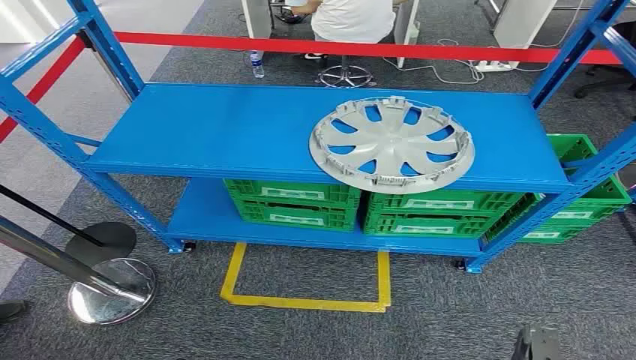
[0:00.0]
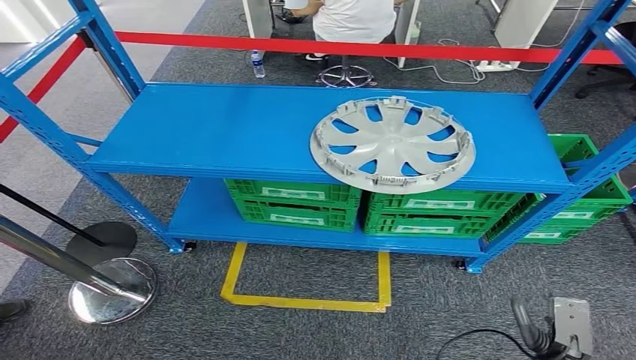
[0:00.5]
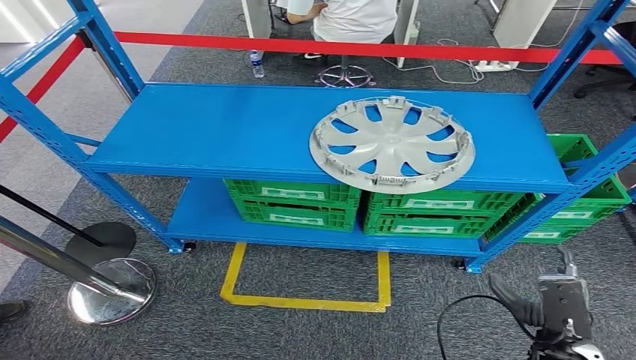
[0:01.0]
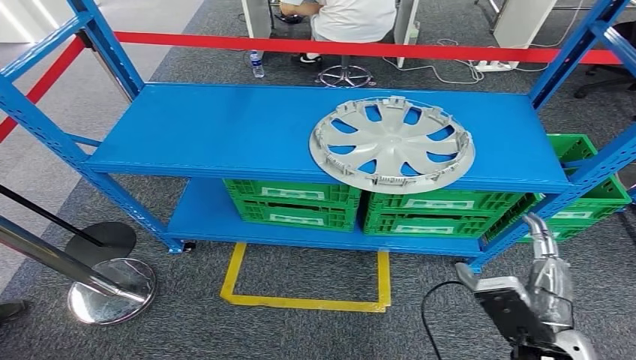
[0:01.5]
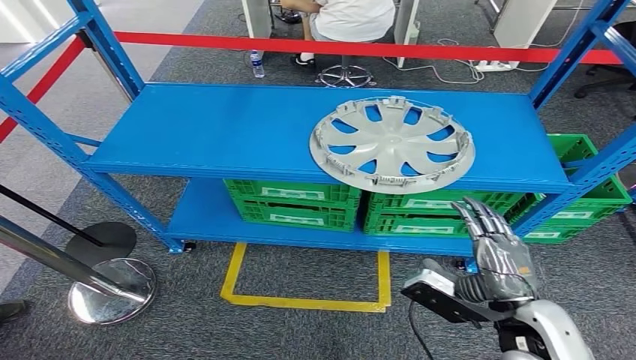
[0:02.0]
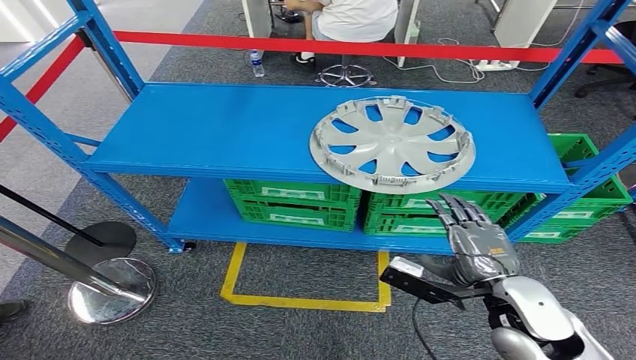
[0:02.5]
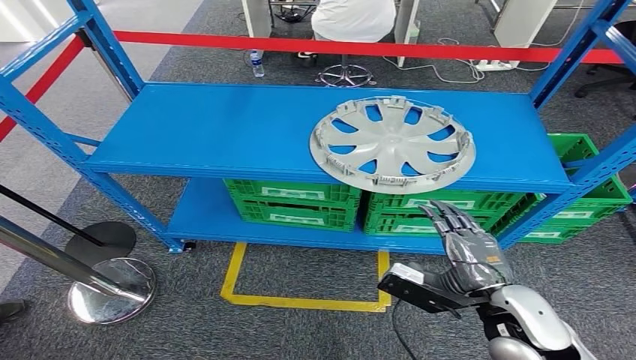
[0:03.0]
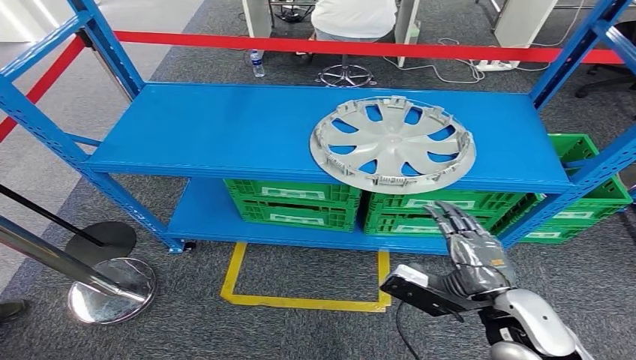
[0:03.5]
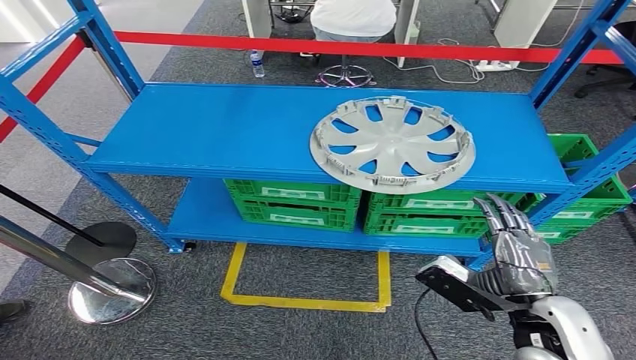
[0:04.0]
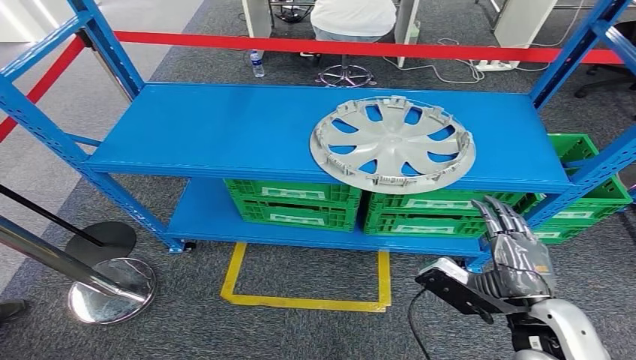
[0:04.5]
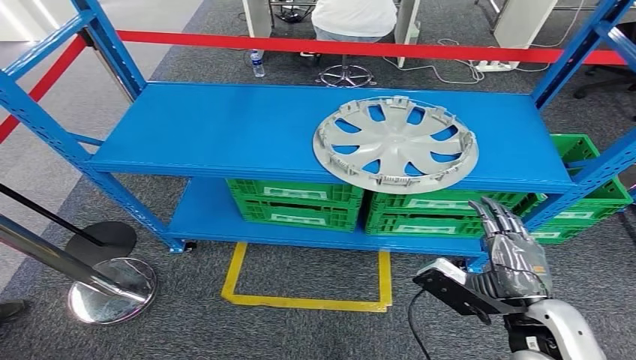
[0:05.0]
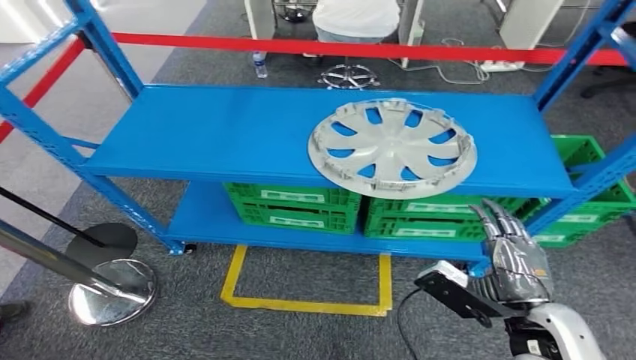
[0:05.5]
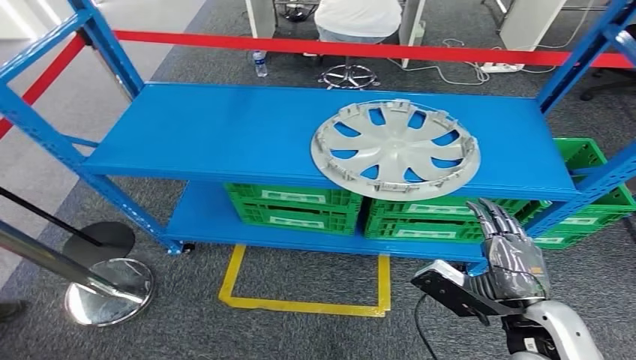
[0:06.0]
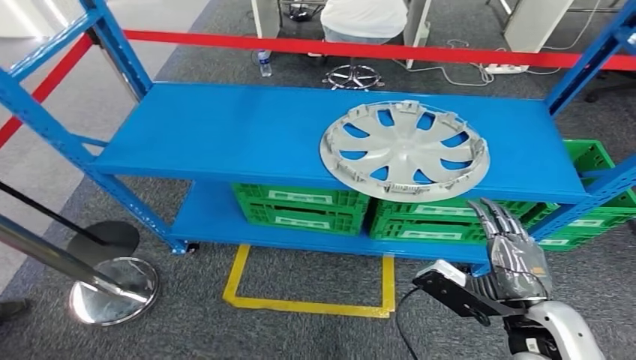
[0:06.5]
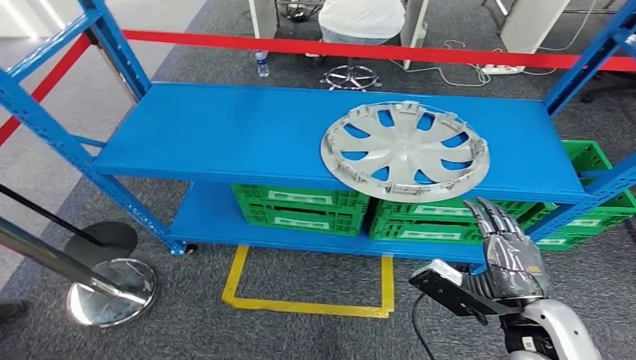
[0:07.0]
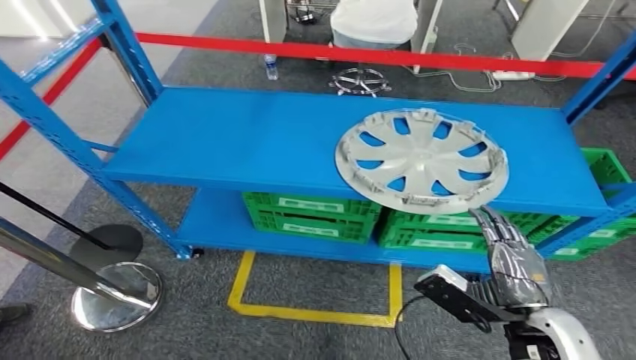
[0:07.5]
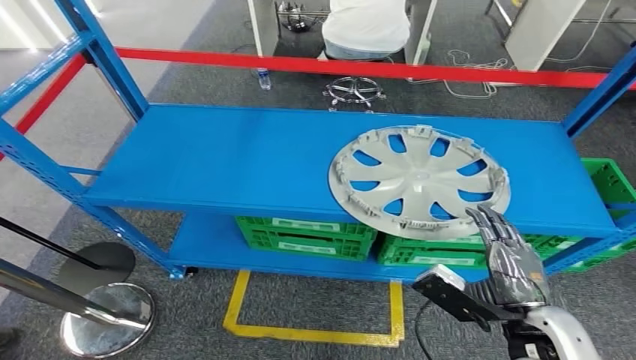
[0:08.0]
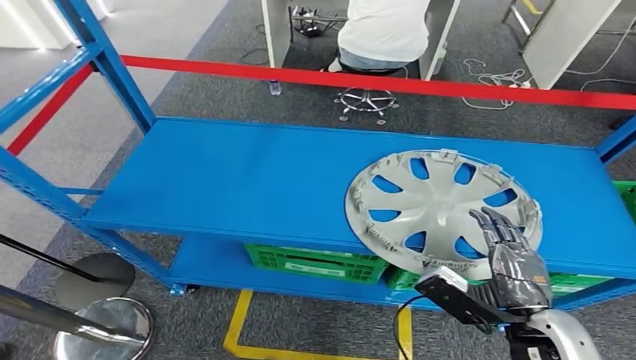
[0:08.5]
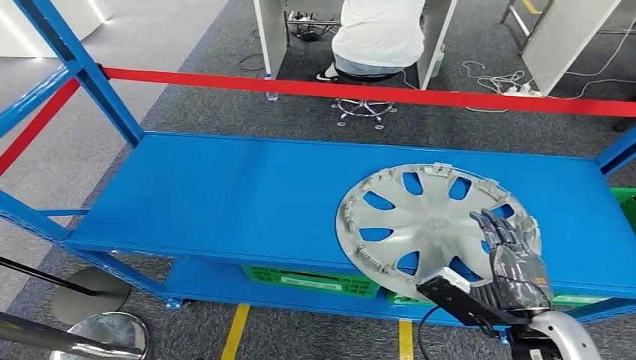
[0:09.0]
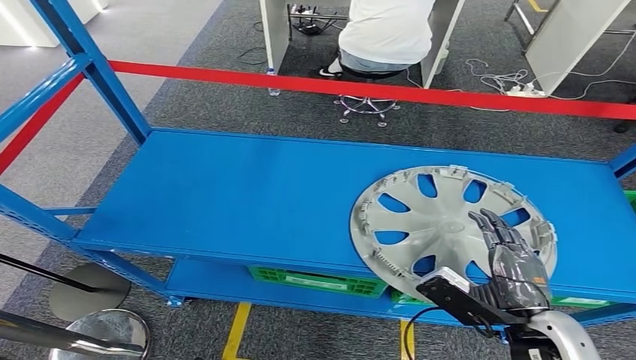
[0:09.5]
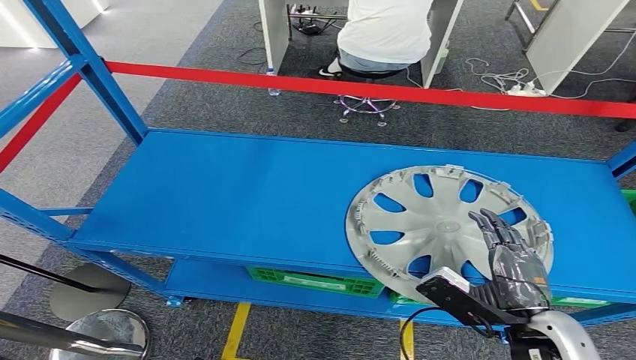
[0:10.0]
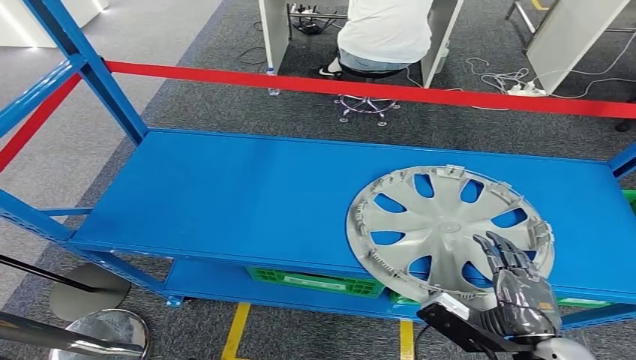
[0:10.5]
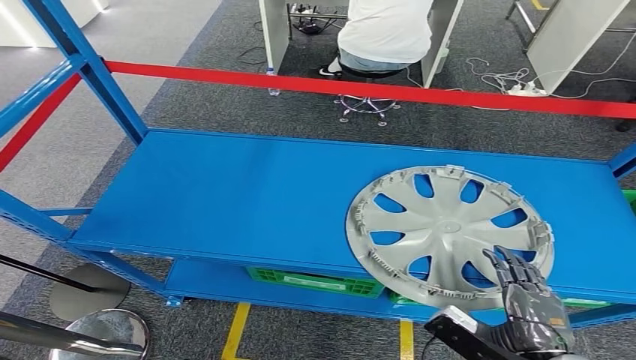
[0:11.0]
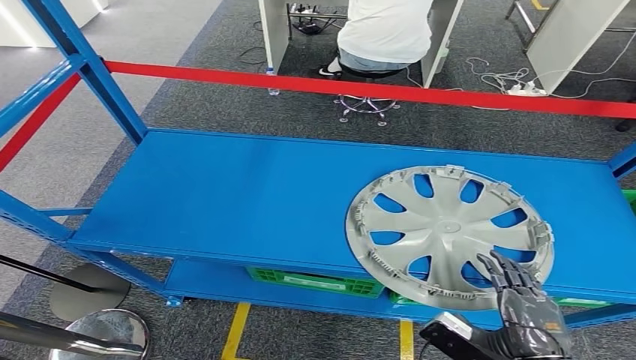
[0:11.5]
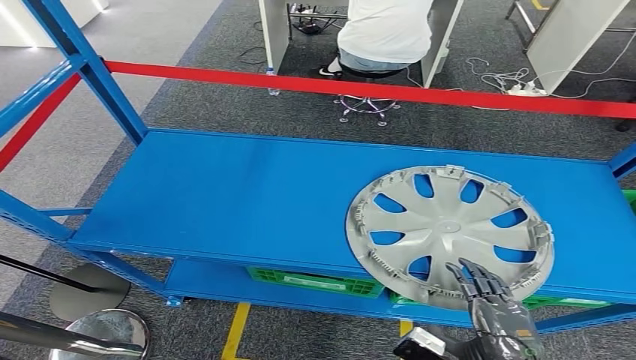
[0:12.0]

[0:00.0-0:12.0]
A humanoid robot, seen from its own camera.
0:02.0 to 0:04.0: There are only small adjustments of the hands.
0:10.0 to 0:12.0: The right hand moves backward, approximately 5 cm.

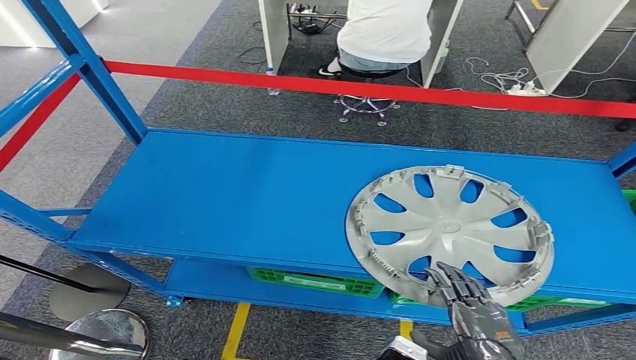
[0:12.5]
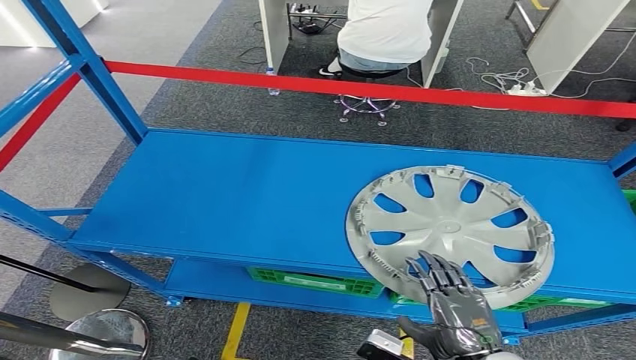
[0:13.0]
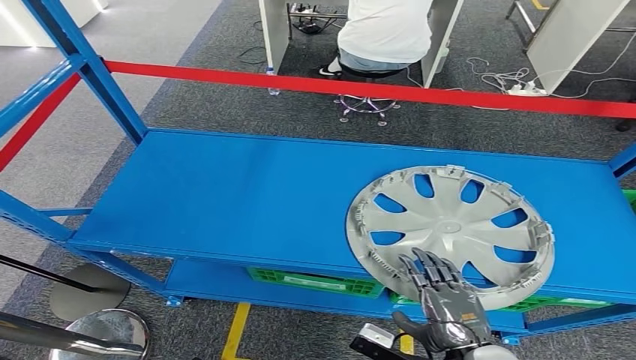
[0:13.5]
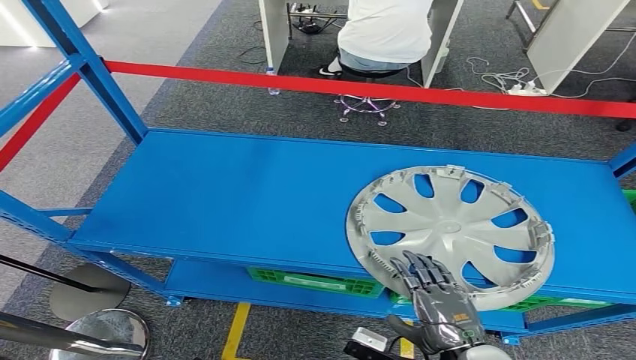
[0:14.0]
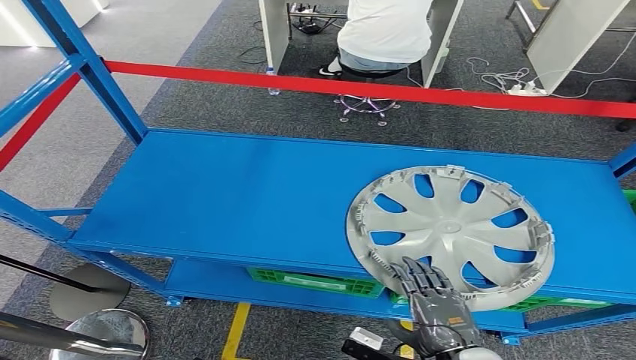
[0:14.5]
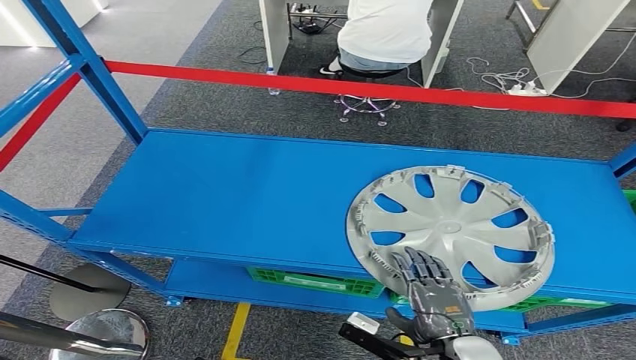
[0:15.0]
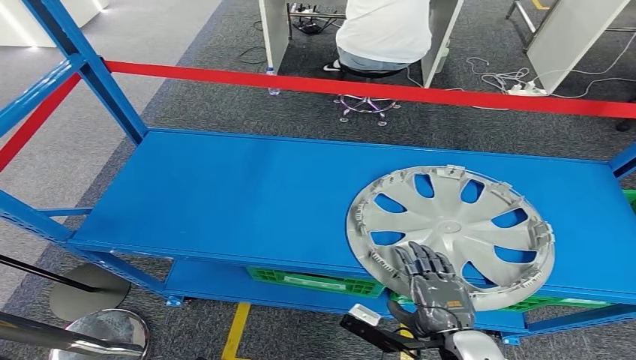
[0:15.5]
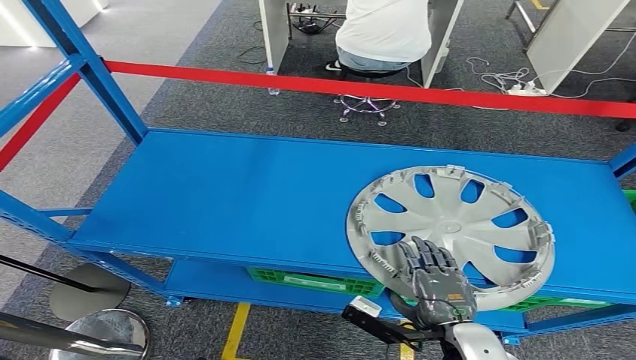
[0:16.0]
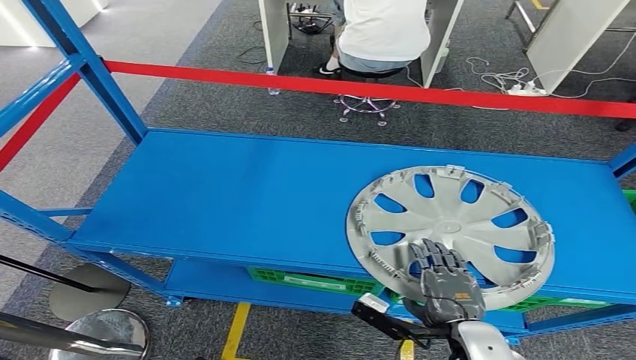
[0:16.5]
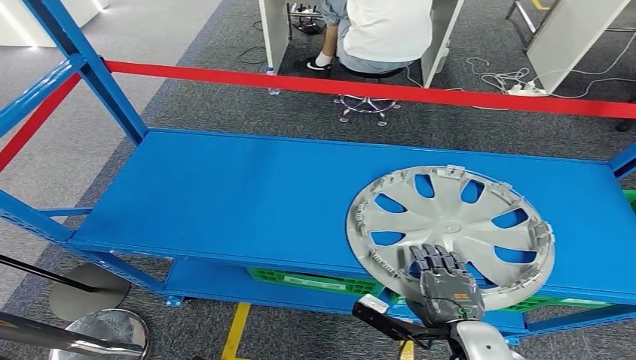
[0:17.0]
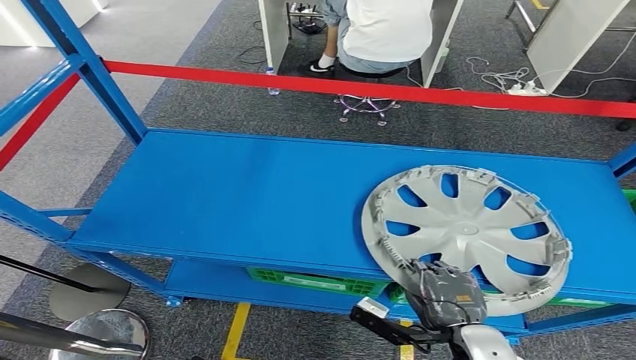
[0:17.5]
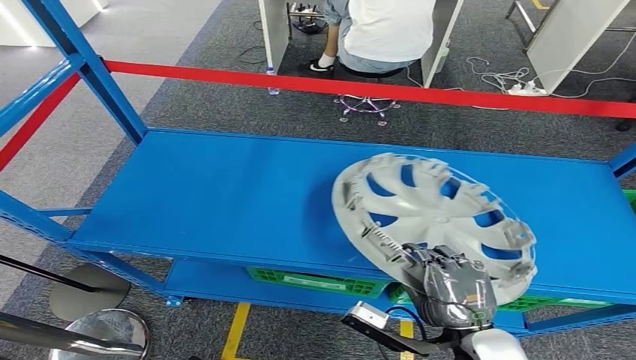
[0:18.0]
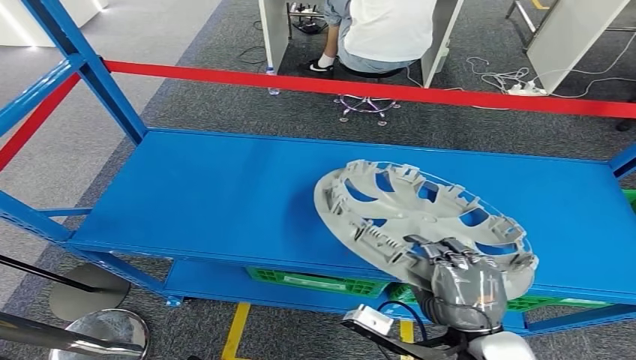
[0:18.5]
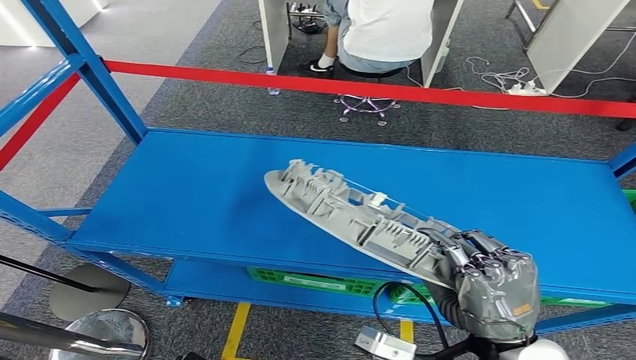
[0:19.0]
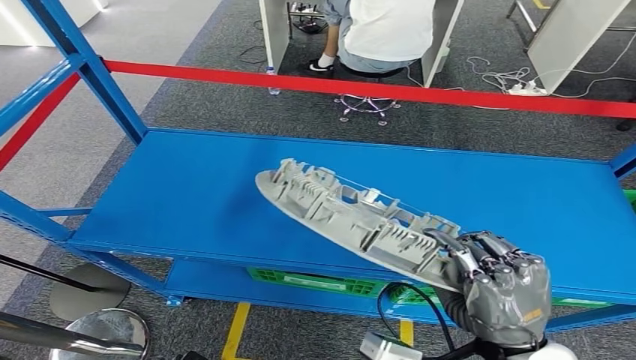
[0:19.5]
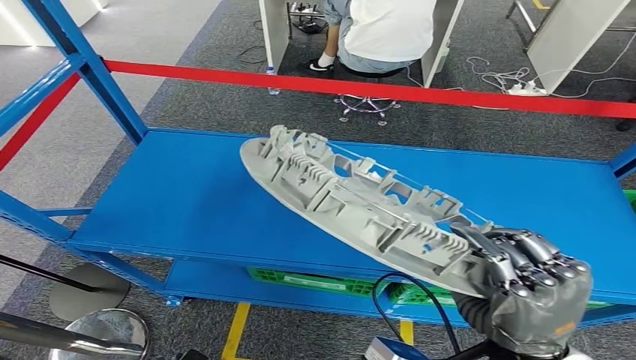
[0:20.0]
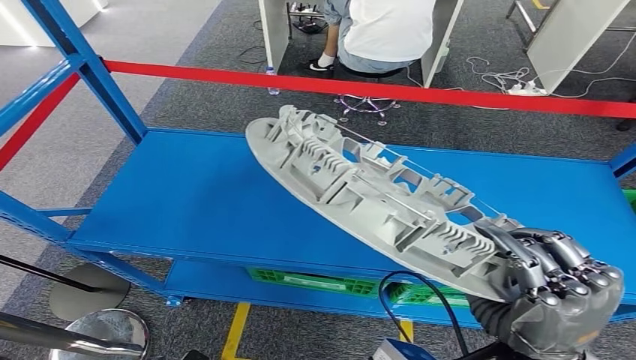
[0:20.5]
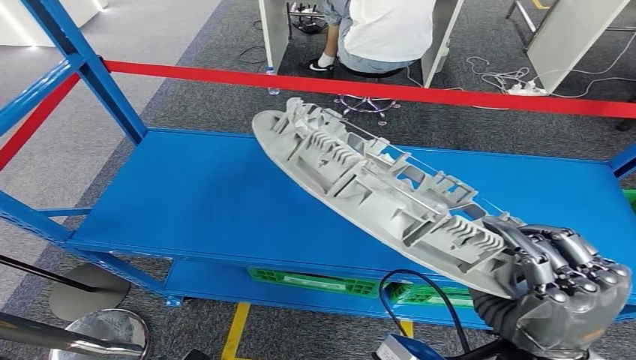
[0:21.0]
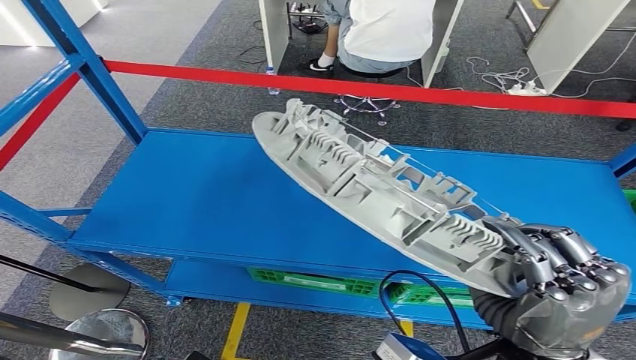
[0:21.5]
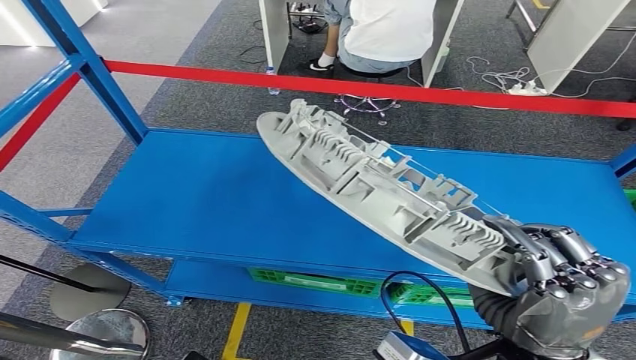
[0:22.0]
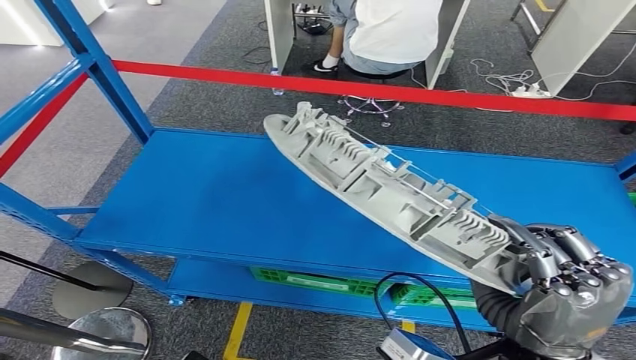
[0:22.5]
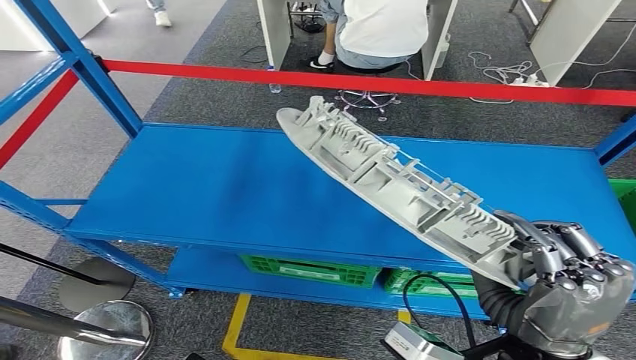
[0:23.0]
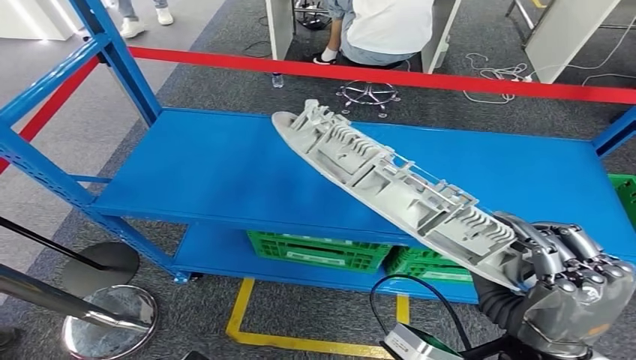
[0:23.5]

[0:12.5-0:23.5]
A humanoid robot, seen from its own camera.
0:12.5 to 0:14.5: The right hand moves roughly 5 cm.
0:14.5 to 0:16.0: The hands stay close to where they were, moving slightly.
0:16.0 to 0:18.0: The right hand goes about 5 cm upward.
0:18.0 to 0:20.0: The right hand heads upward, covering about 10 cm.
0:20.0 to 0:21.5: The hands make only small movements.
